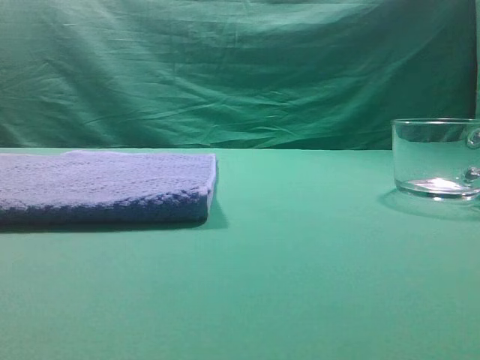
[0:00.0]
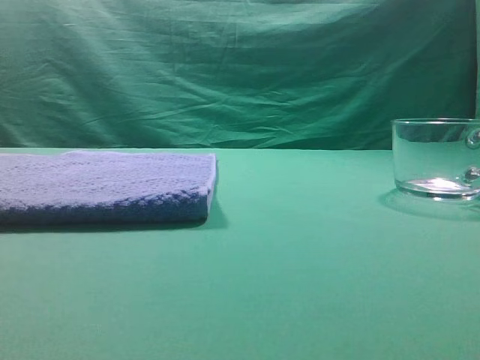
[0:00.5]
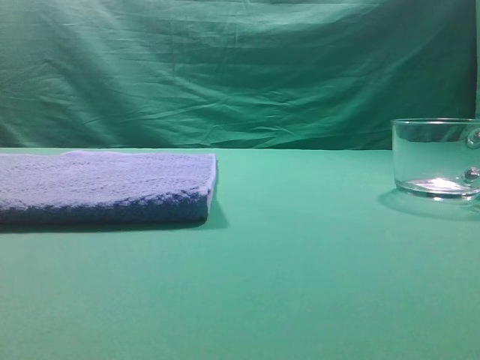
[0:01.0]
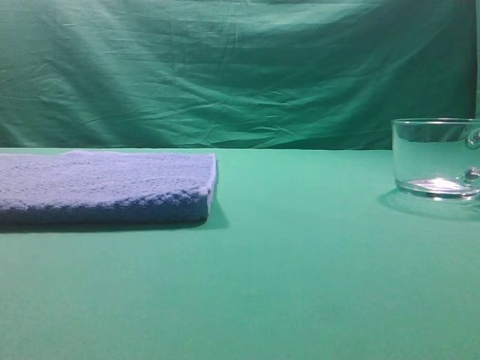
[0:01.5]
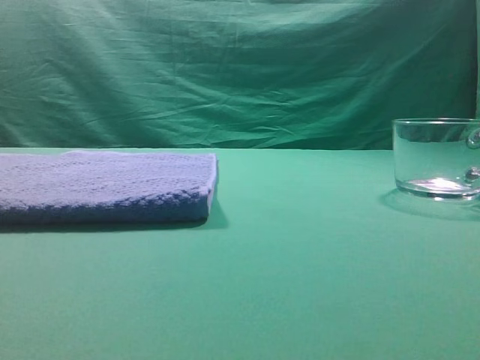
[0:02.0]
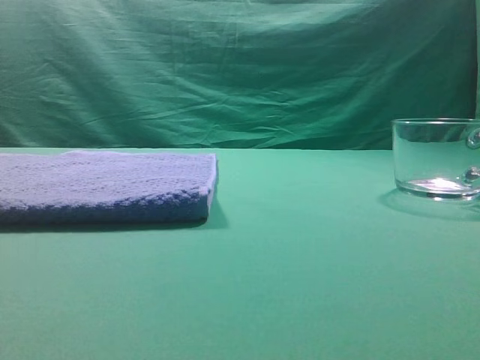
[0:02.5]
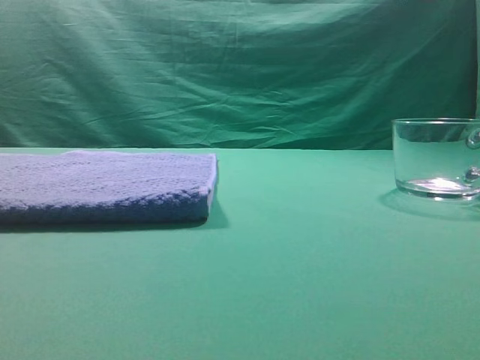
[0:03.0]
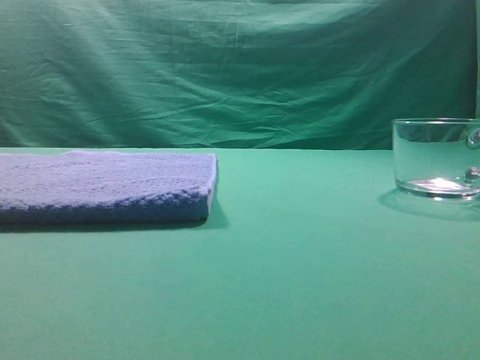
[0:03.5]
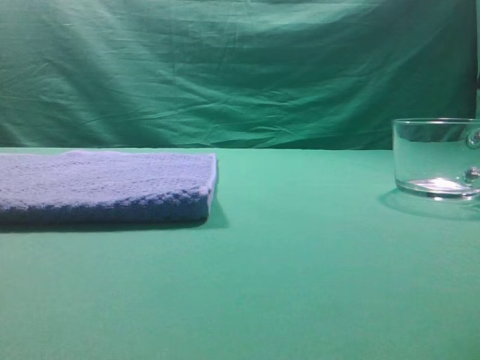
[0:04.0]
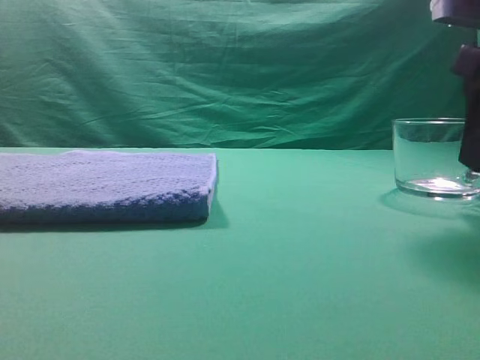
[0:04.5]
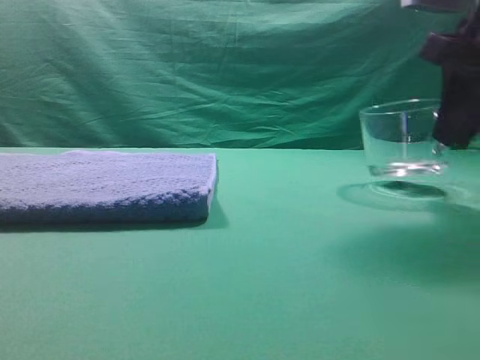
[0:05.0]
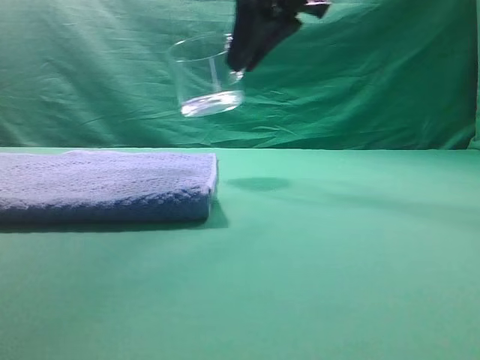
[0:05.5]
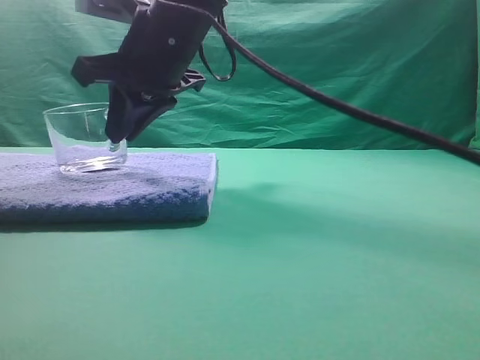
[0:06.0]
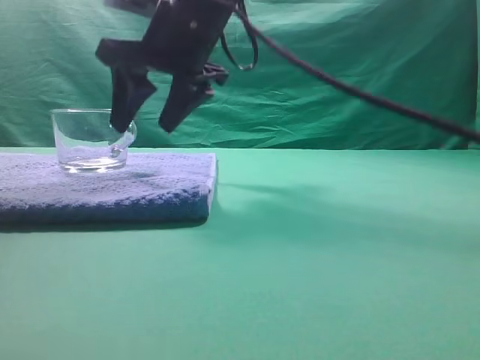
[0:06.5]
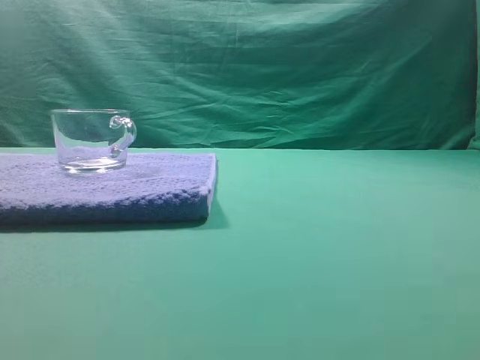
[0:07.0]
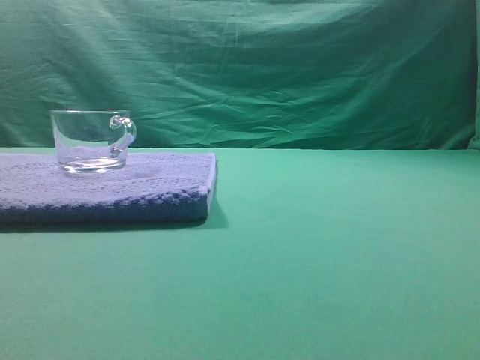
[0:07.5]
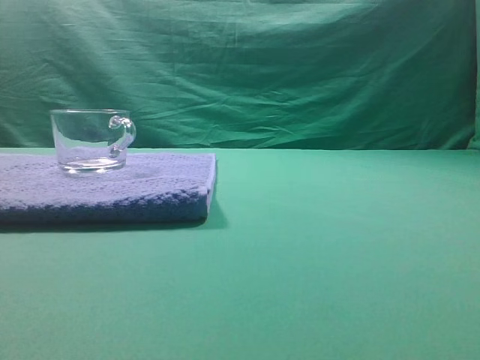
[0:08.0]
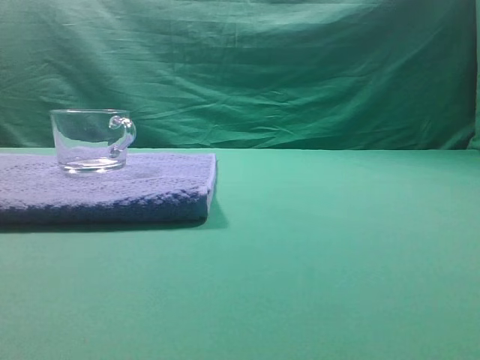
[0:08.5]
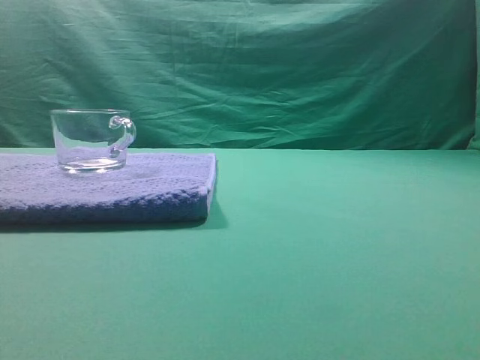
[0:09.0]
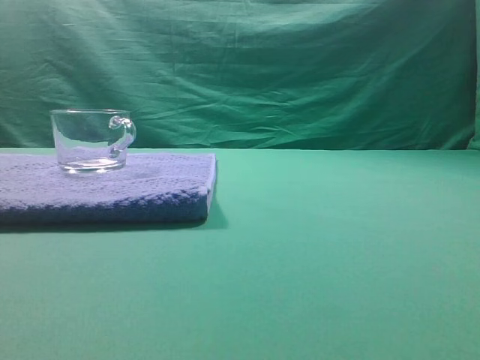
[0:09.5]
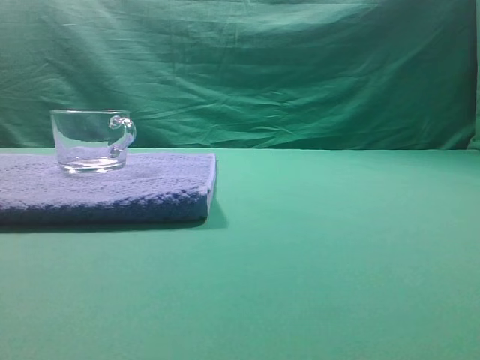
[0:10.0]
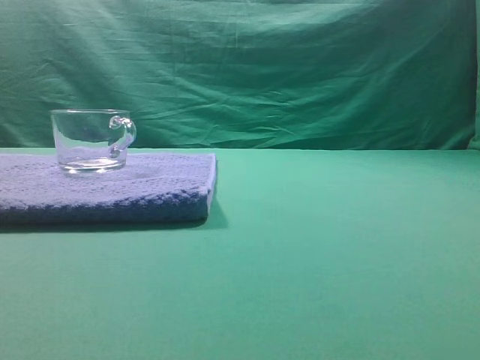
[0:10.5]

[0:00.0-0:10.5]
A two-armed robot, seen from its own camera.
Task of the whole recording: grasp the transparent glass cup and place it within the blue towel.
Step, 0:00.0 to 0:05.0: Grasp the transparent glass cup.
Step, 0:05.5 to 0:06.5: Place the glass cup on the blue zone.

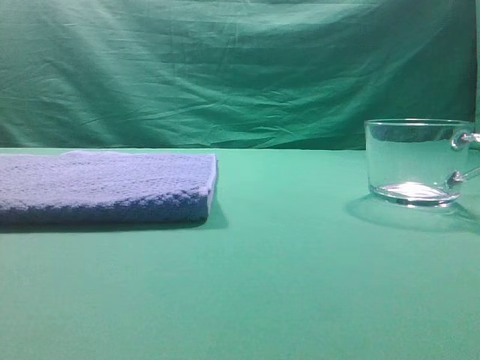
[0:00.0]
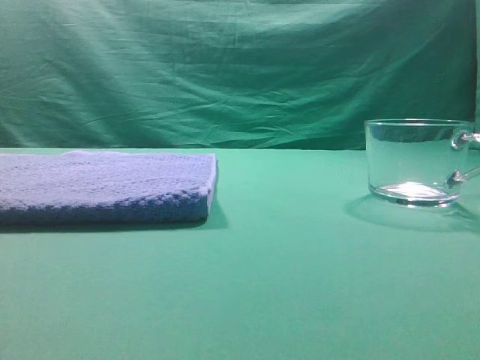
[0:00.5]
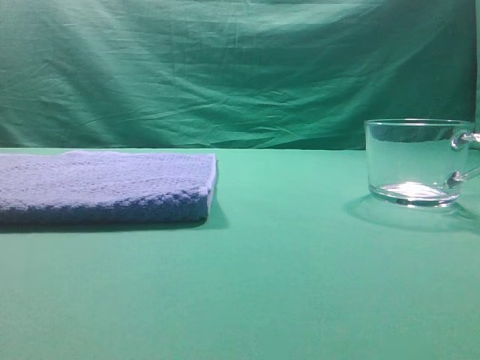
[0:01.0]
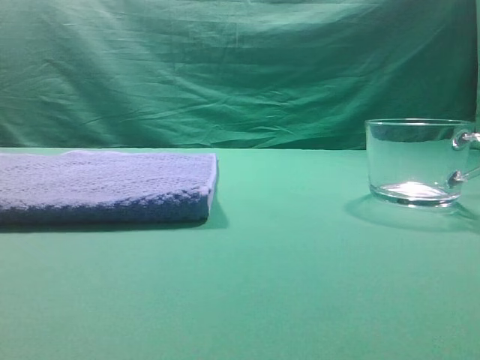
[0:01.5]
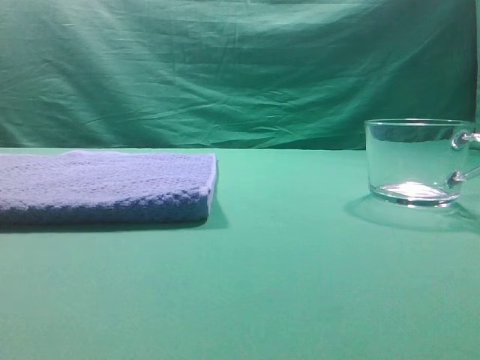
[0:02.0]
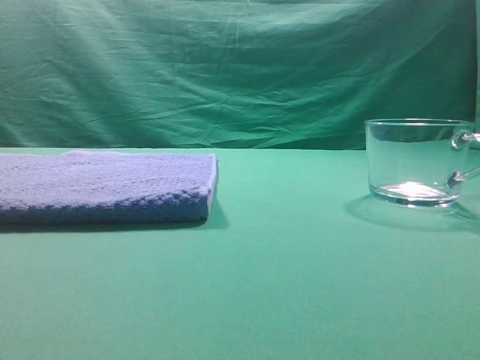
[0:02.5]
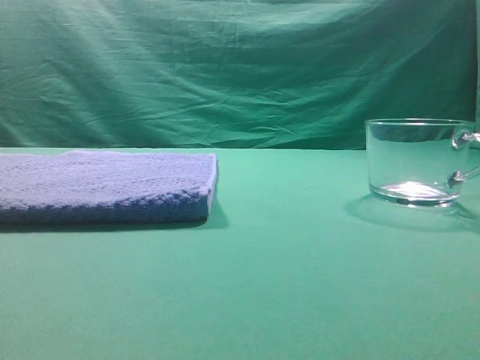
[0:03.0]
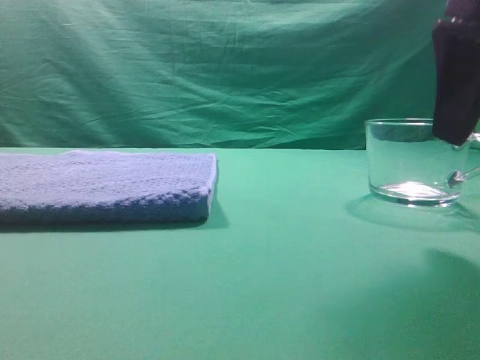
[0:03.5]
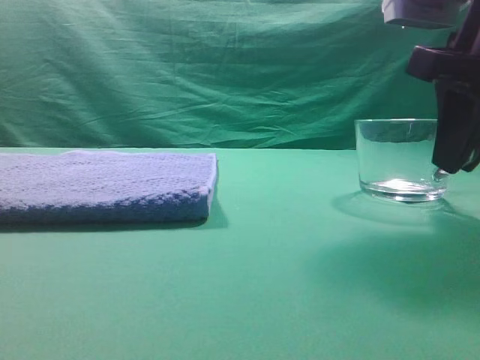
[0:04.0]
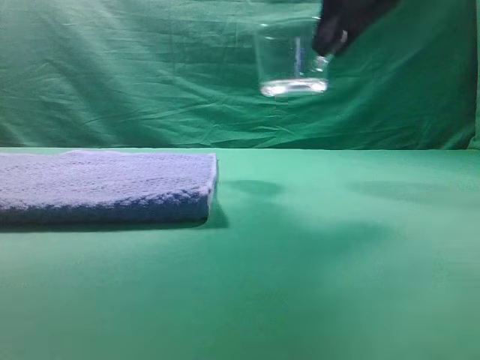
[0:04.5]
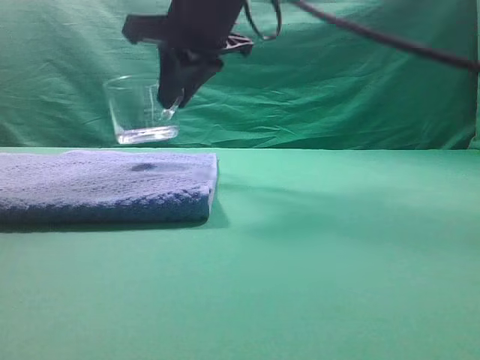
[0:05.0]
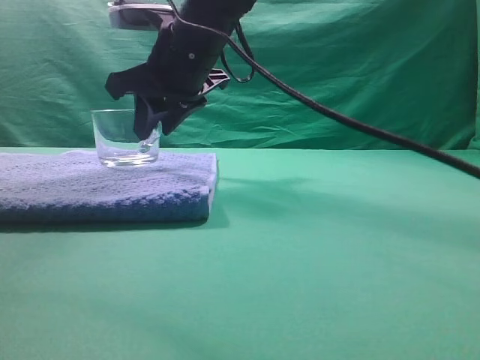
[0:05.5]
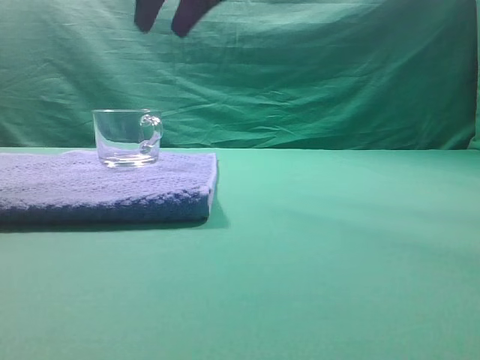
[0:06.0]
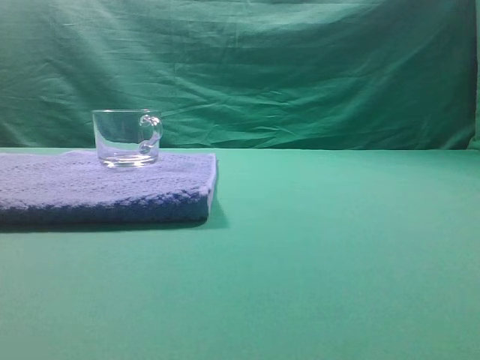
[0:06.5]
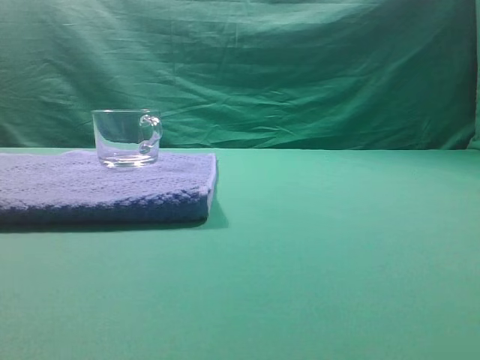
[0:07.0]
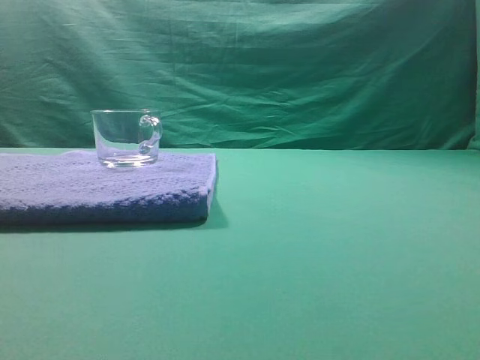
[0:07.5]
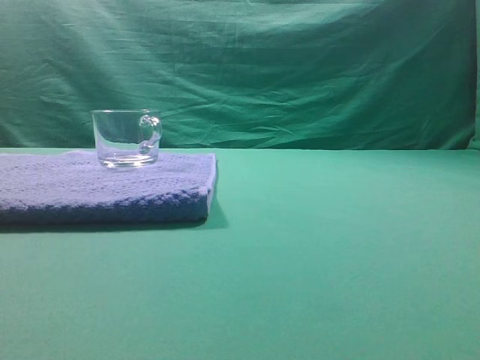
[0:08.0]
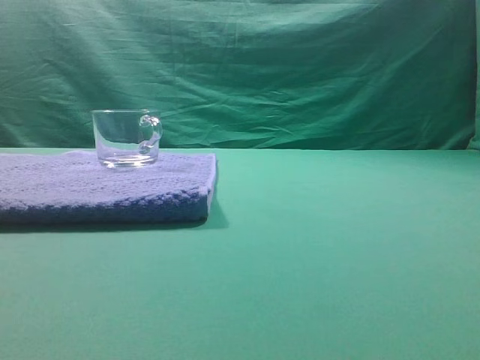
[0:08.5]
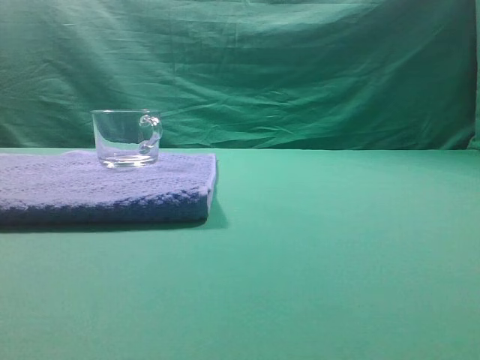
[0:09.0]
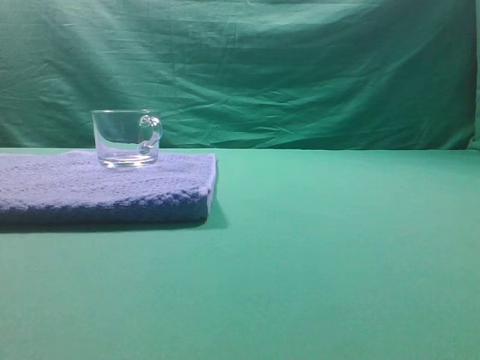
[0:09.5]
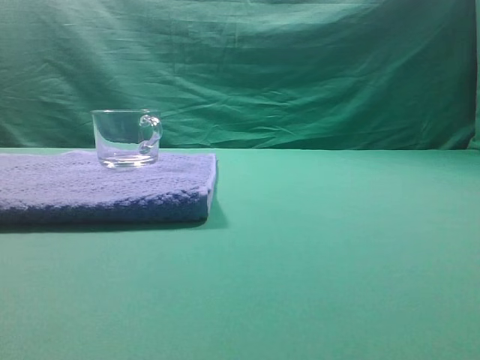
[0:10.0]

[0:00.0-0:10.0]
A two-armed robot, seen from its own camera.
Task of the whole recording: grasp the transparent glass cup and place it within the blue towel.
Step, 0:00.0 to 0:04.0: Grasp the transparent glass cup.
Step, 0:04.5 to 0:05.5: Place the glass cup on the blue zone.
